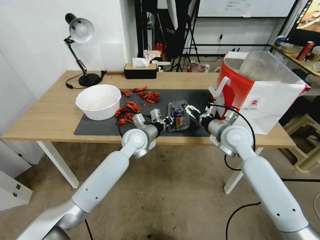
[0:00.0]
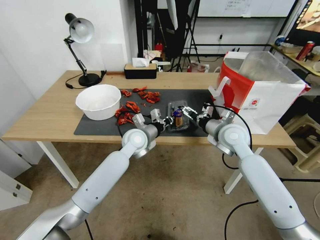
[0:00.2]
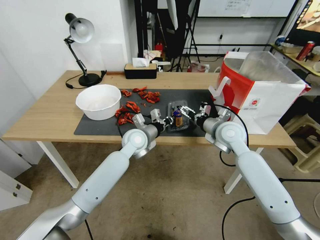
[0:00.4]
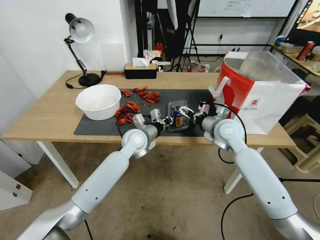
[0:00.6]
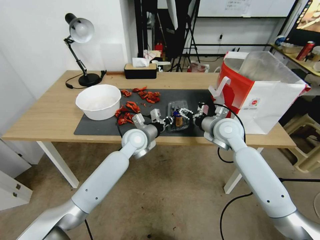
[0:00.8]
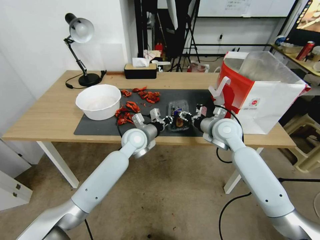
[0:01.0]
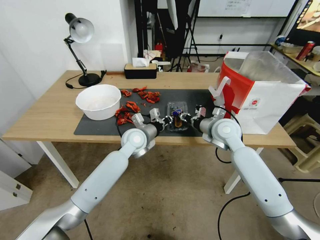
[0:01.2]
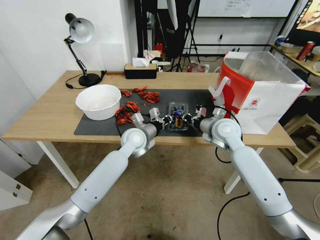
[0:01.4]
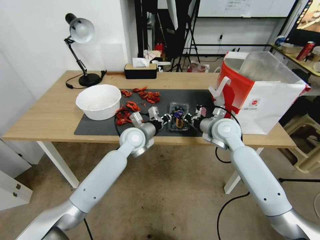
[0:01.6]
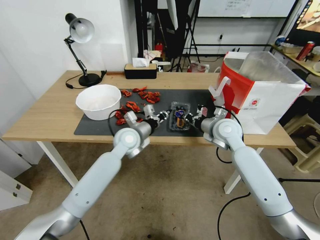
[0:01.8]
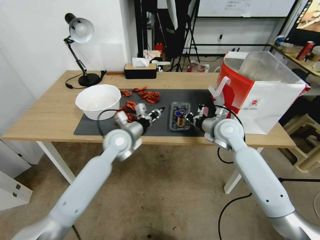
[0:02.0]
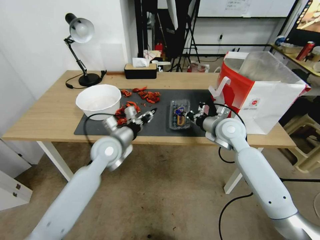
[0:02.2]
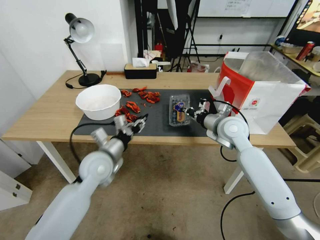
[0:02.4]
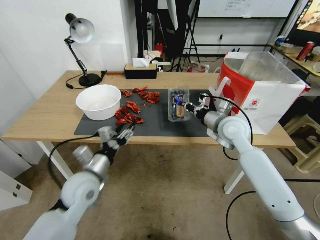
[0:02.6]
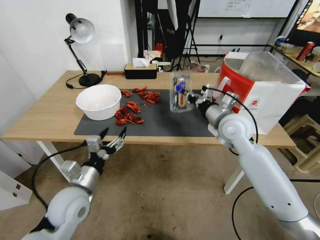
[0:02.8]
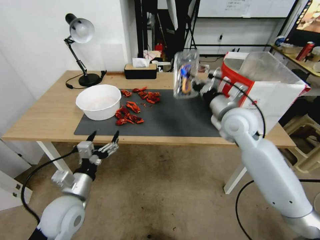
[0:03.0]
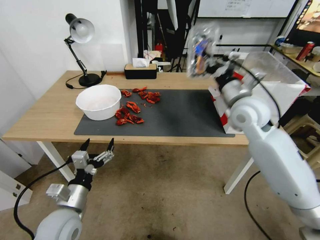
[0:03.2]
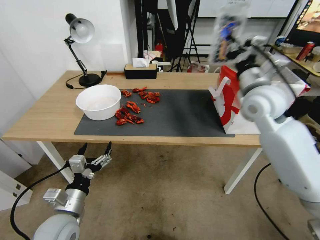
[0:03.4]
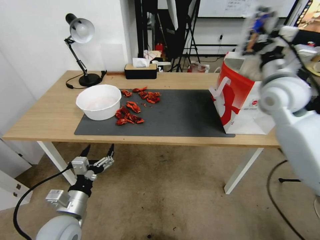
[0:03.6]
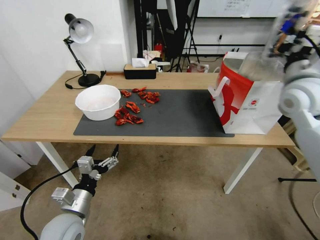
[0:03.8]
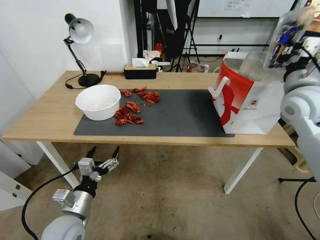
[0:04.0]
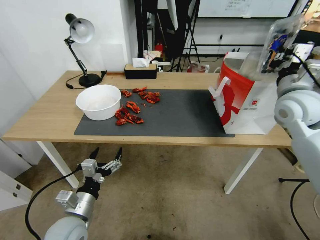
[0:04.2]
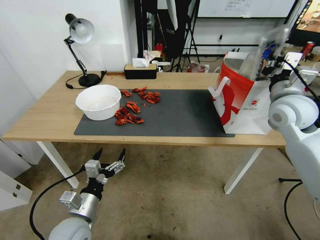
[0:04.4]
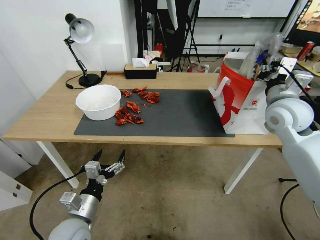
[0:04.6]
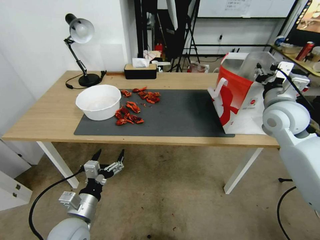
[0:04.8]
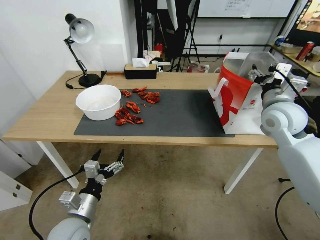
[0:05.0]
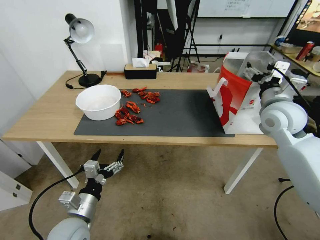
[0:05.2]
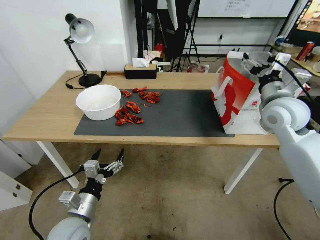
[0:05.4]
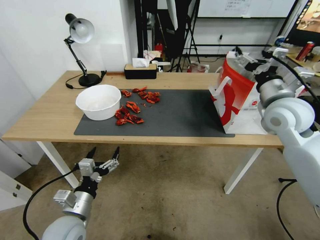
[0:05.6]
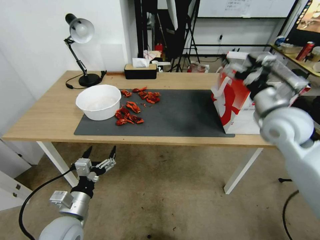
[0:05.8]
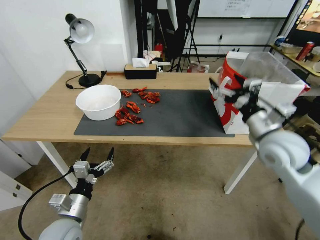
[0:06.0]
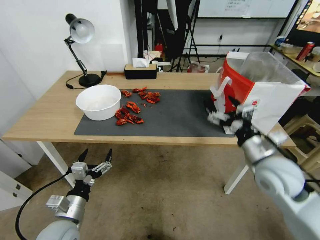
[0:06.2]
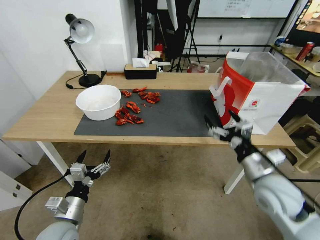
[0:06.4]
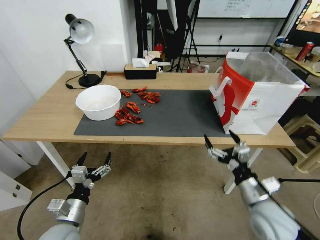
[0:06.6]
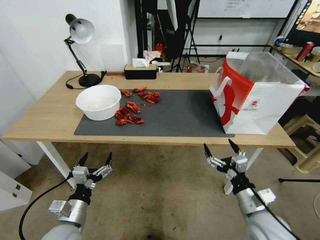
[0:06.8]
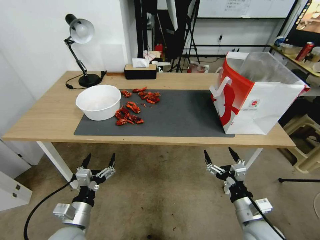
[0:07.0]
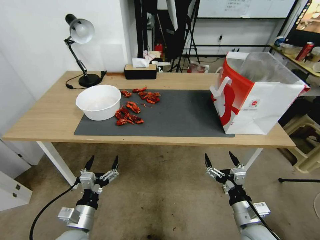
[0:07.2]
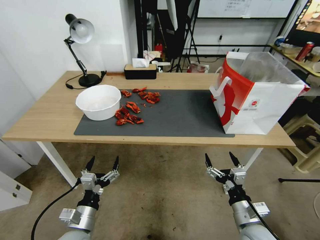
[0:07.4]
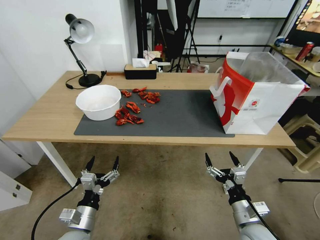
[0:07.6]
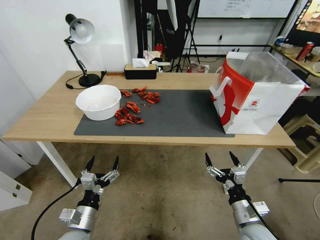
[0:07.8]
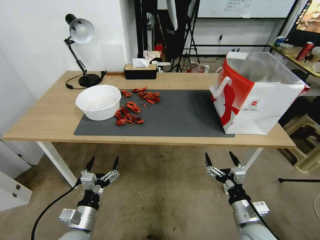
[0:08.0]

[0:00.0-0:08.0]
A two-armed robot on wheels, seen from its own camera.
Task of the whole recording: Close the takeout container lid, then place the container into the takeout bag.
0:00.0 to 0:01.6: The right gripper closes.
0:01.6 to 0:03.2: The left gripper moves backward and to the left, about 30 cm, and opens, while the right gripper heads upward, covering about 10 cm.
0:03.2 to 0:04.8: The right gripper travels to the right by some 10 cm, and opens up.
0:04.8 to 0:06.4: The right gripper shifts about 20 cm backward and downward, and opens up.
0:06.4 to 0:08.0: The left gripper shifts by about 5 cm, while the right gripper is displaced downward and backward by approximately 15 cm.
